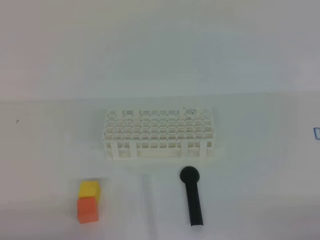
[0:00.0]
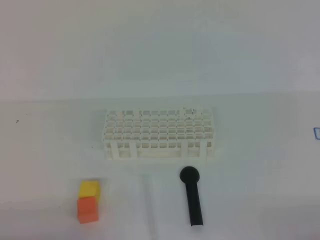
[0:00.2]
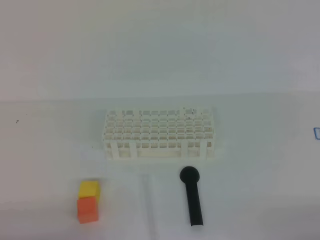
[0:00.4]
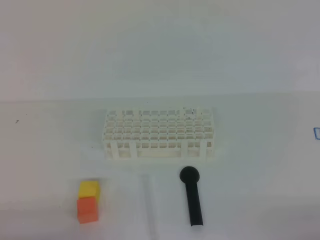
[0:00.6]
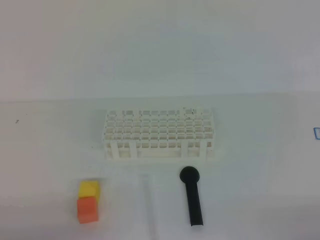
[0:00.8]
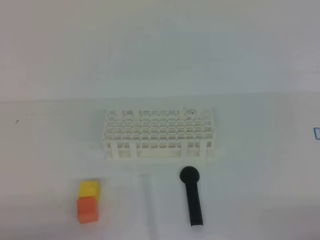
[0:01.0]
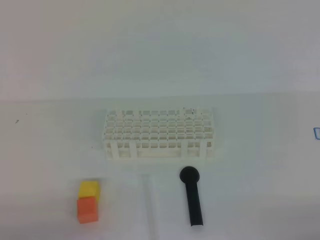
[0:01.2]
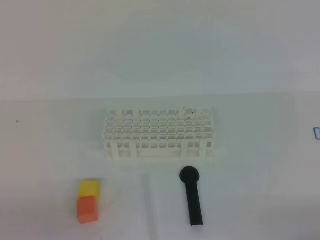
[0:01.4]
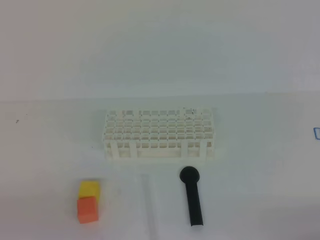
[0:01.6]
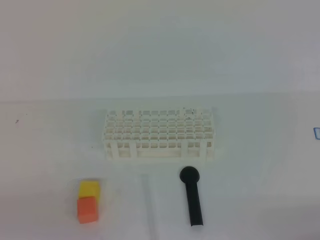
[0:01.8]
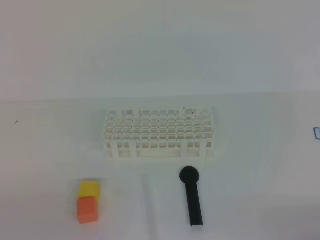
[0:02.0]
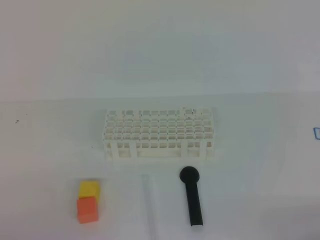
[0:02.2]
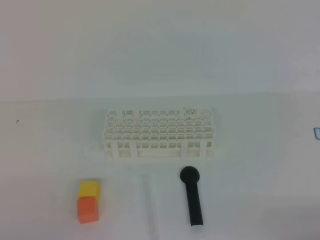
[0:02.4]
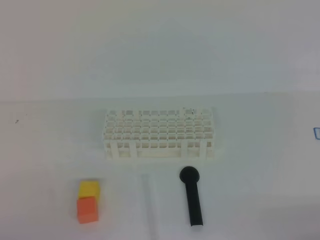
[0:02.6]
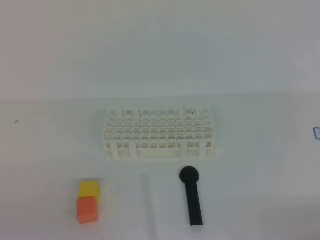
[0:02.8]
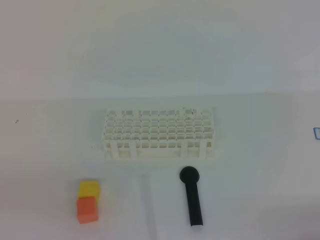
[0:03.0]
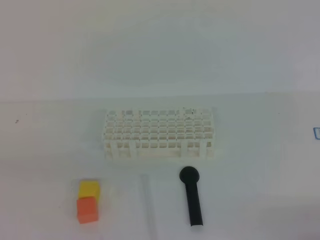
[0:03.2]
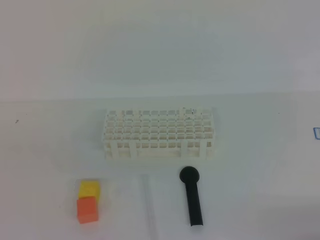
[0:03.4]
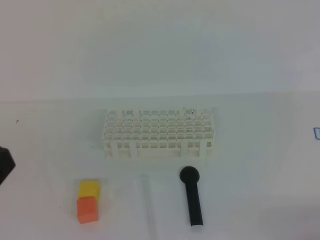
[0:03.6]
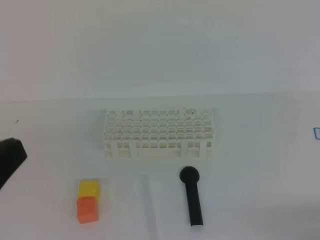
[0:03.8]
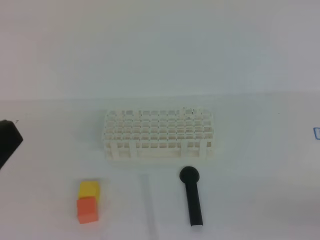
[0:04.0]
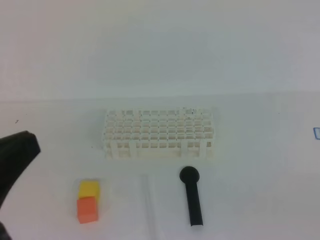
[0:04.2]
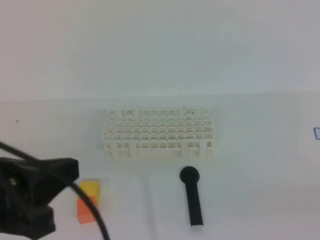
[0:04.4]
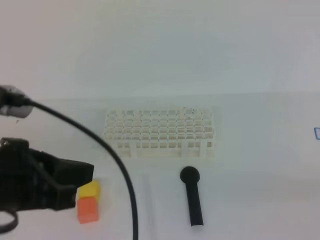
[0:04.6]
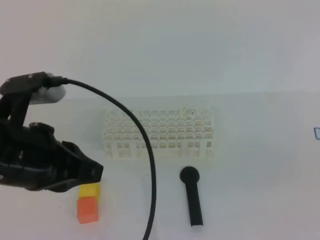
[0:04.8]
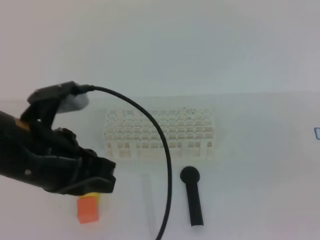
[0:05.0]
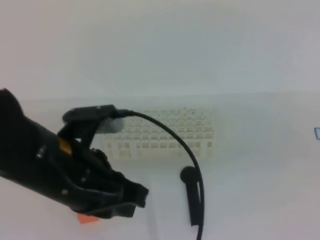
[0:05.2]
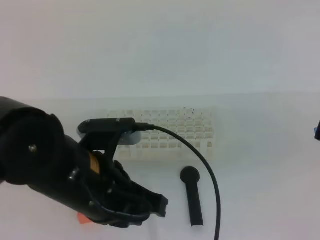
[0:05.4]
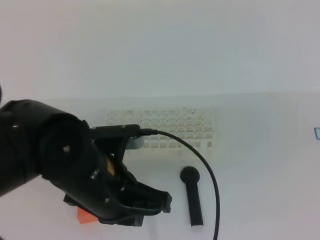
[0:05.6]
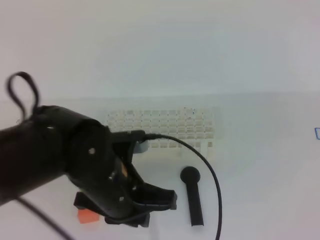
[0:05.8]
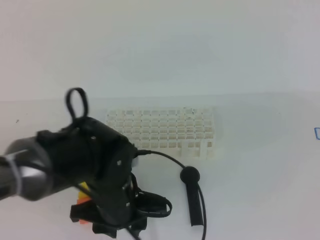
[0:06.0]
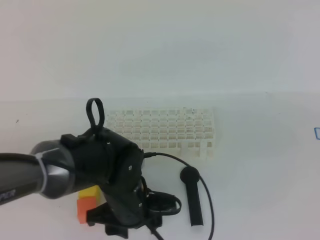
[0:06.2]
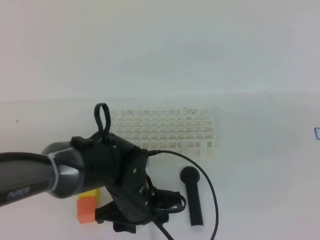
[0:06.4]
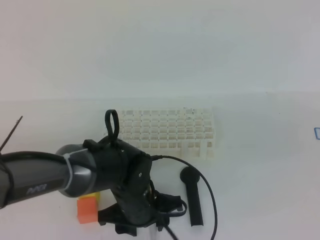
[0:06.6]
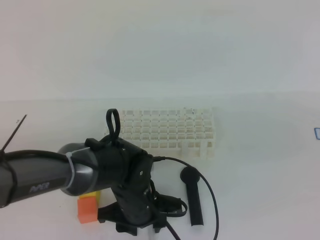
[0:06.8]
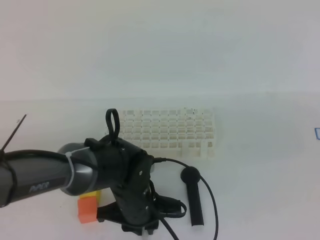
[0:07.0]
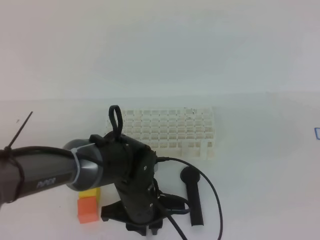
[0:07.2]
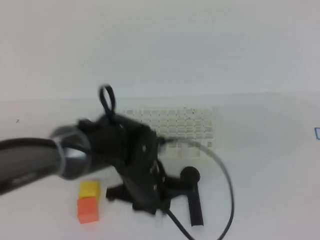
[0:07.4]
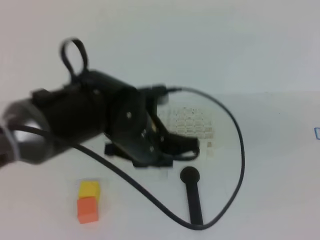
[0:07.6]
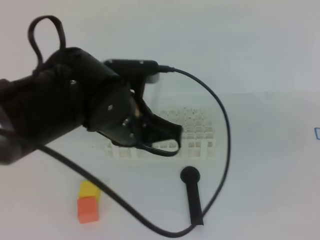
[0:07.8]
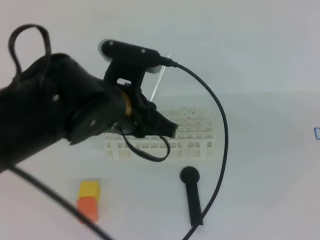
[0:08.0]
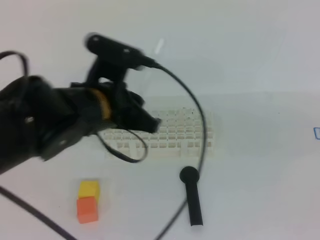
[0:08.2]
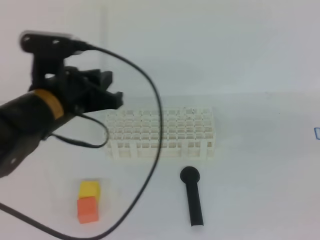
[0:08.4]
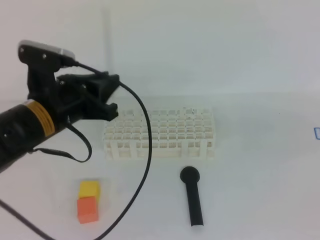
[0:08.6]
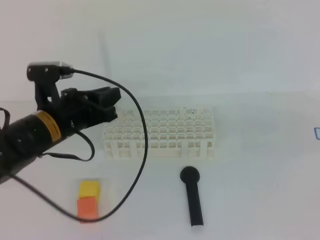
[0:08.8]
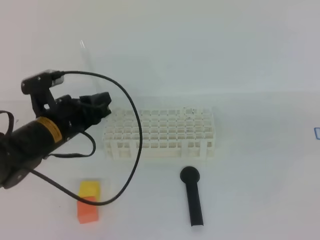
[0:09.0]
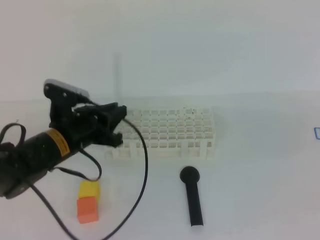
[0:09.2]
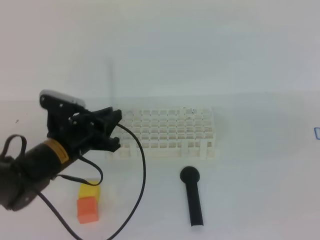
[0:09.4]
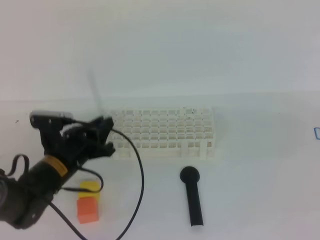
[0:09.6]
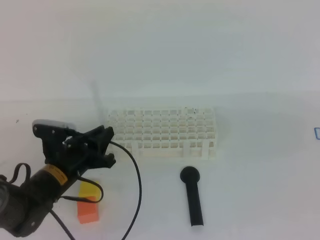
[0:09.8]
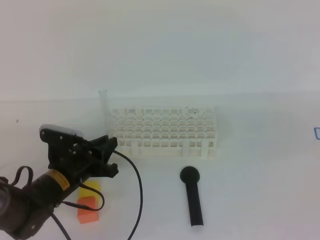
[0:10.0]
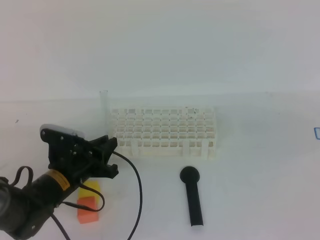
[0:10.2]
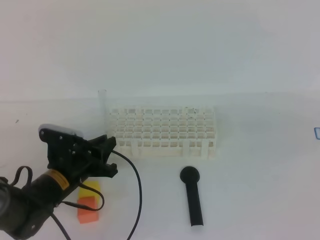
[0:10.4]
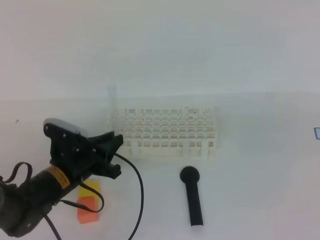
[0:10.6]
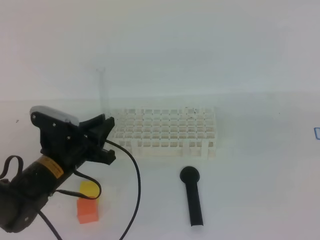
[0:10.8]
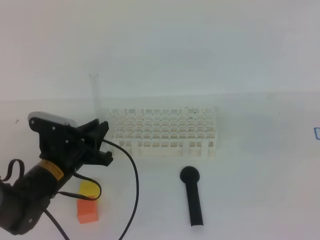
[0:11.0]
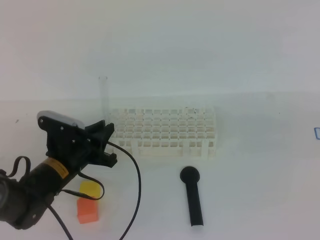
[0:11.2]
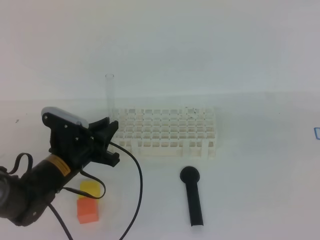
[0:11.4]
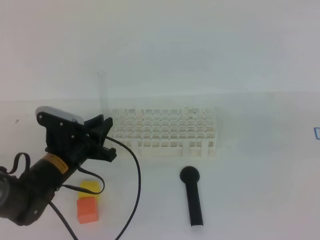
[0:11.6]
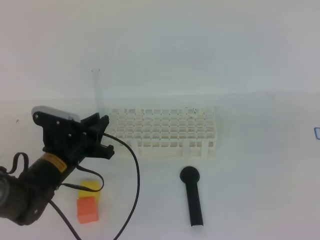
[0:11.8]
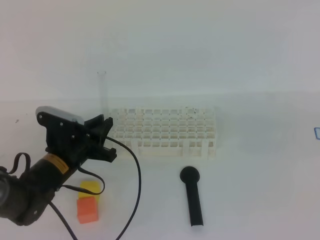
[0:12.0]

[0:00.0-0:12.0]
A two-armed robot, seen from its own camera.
0:03.0 to 0:04.4: The right gripper travels upward by some 5 cm. The left gripper travels upward, to the right and forward by roughly 10 cm.
0:04.4 to 0:06.0: The right gripper heads forward, upward and to the left, covering about 15 cm, while the left gripper shifts some 20 cm downward, to the right and forward, and opens.
0:06.0 to 0:07.6: The left gripper ends up approximately 5 cm from where it was, and closes up.
0:07.6 to 0:09.0: The left gripper heads to the left and forward, covering roughly 15 cm.
0:09.0 to 0:10.4: The left gripper goes some 10 cm downward.
0:10.4 to 0:12.0: There are only small adjustments of the grippers.

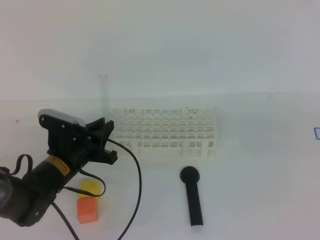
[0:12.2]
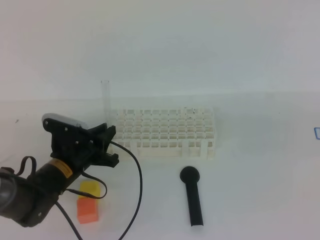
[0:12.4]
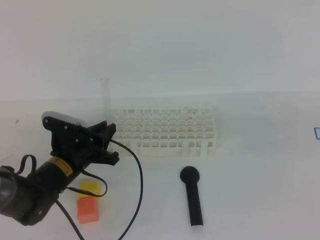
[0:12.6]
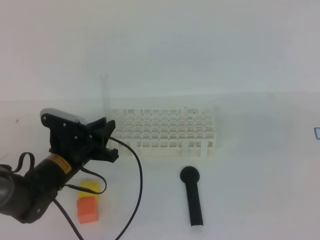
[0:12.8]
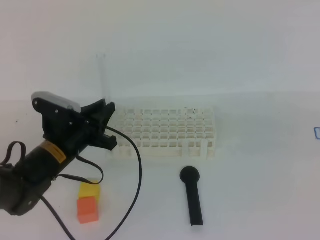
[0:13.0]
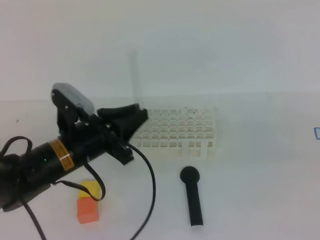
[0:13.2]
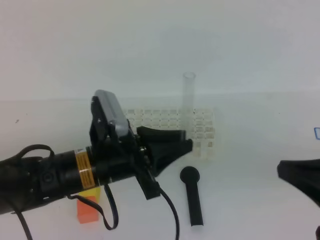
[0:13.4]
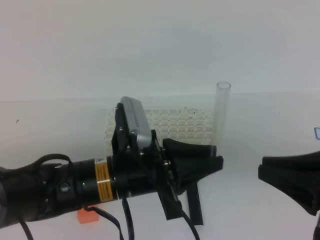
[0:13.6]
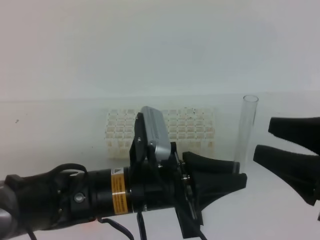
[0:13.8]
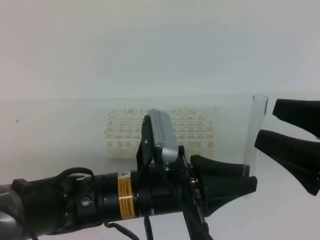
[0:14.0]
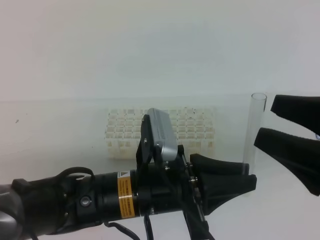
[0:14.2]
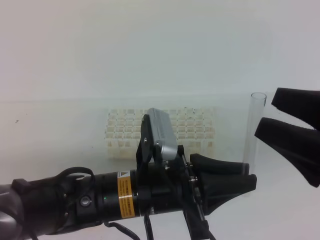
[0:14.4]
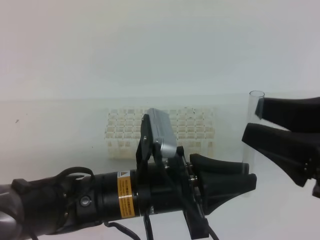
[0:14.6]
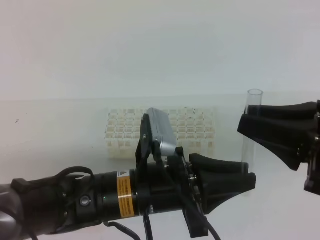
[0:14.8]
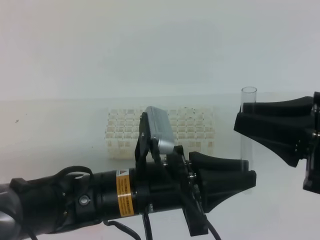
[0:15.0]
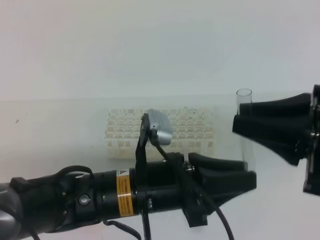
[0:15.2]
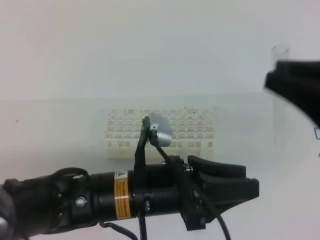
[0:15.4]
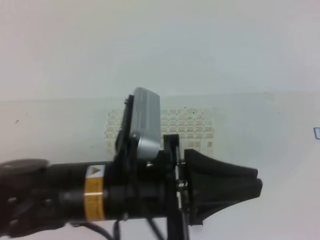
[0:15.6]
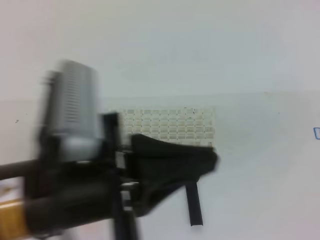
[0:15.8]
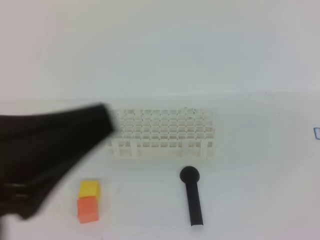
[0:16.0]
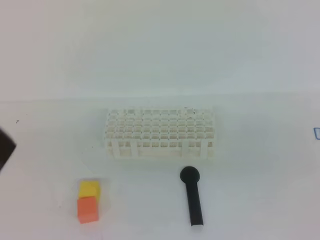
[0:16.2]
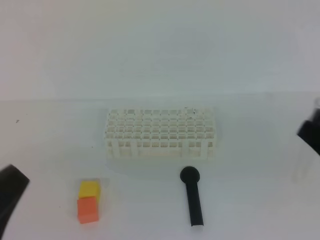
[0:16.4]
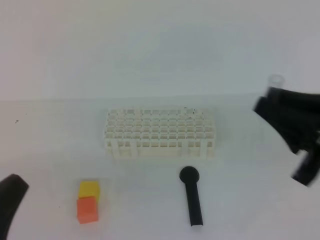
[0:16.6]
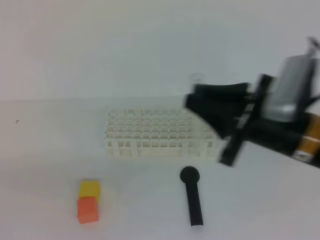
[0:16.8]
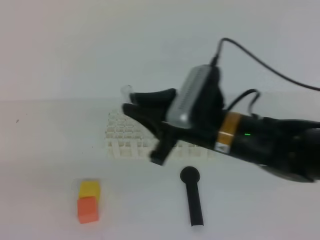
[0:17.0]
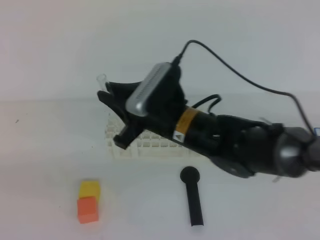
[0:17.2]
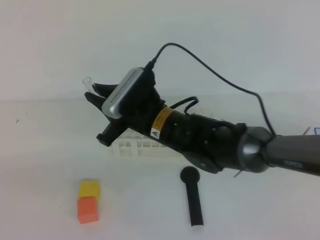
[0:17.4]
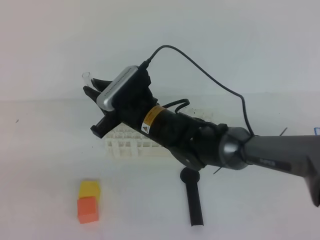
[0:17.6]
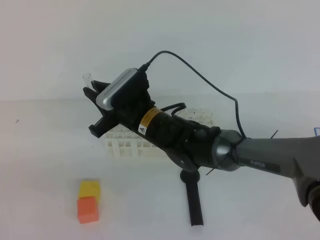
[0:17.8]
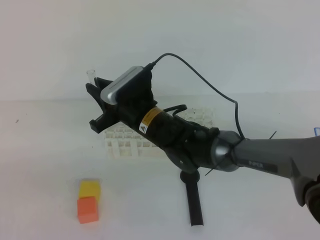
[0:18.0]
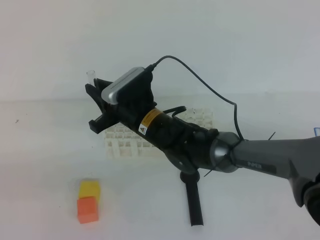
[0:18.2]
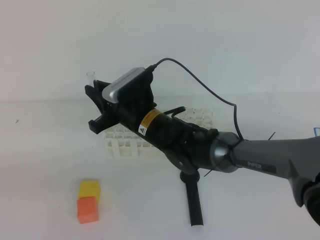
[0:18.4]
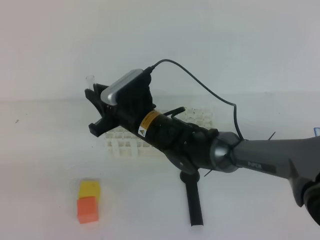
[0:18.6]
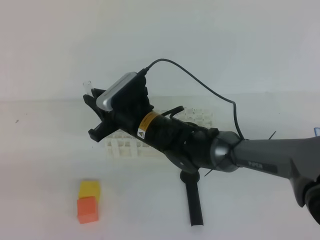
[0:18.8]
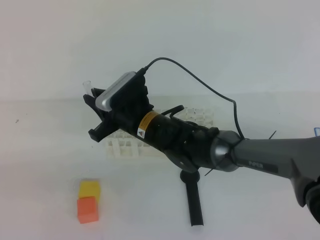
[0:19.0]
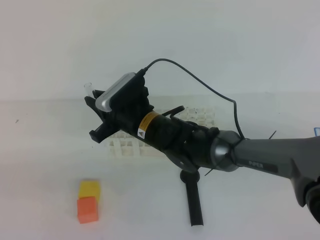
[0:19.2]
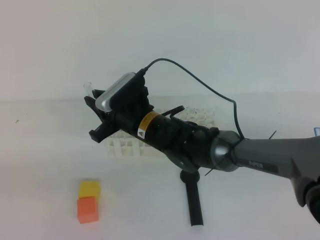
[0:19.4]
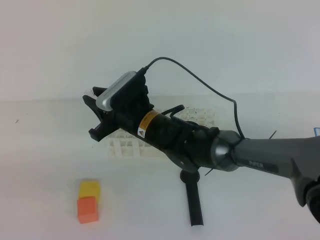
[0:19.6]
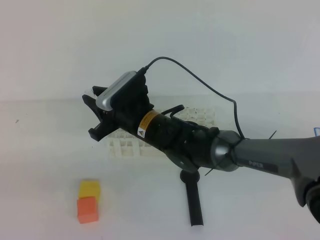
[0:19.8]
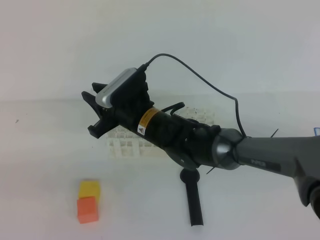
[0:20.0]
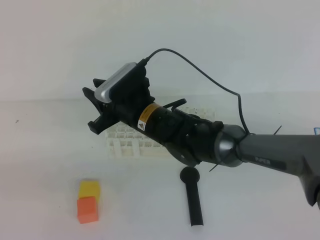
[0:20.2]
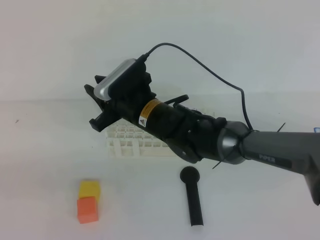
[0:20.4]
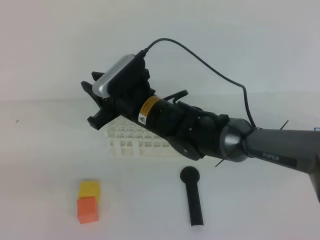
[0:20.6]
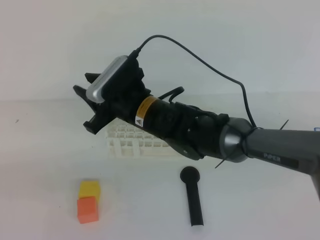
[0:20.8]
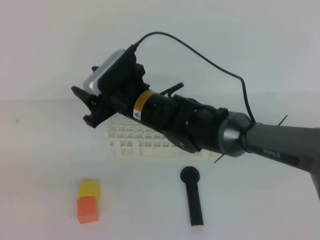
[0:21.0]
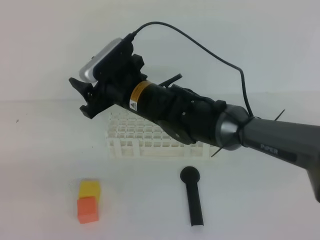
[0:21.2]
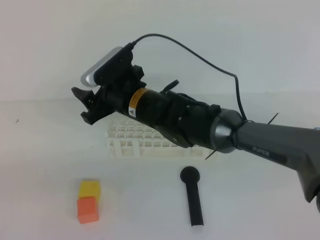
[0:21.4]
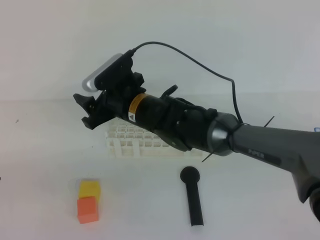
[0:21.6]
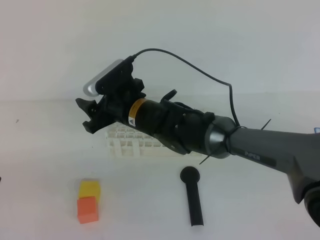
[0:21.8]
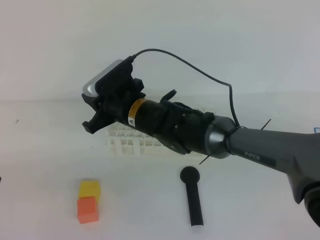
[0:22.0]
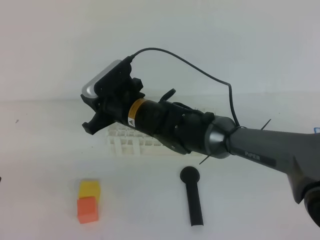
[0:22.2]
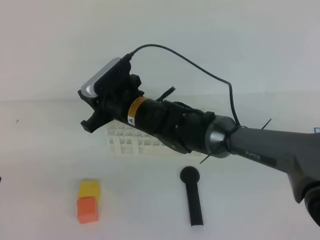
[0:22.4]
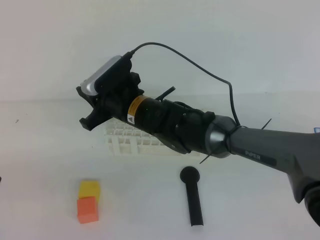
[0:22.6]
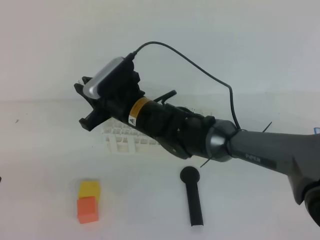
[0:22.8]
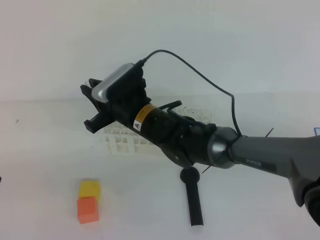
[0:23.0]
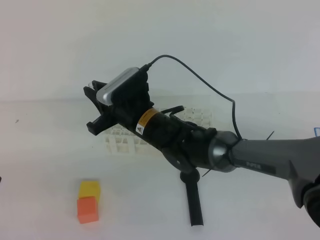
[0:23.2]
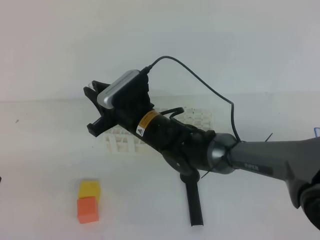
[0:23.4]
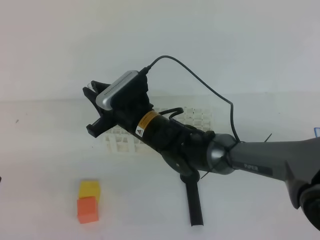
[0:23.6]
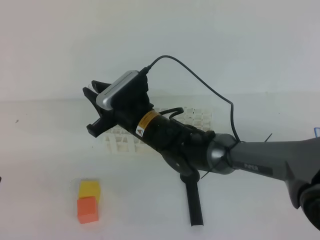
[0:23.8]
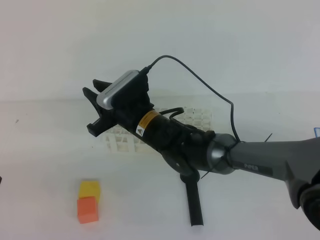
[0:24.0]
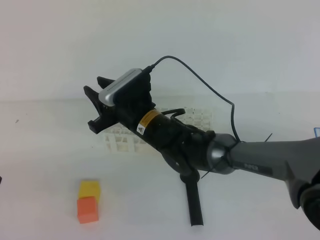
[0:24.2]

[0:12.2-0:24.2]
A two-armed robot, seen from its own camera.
0:12.2 to 0:13.8: The right gripper heads to the left, covering approximately 5 cm, and opens up; the left gripper shifts roughly 20 cm backward, to the right and upward.
0:13.8 to 0:15.2: The right gripper closes. The left gripper opens.
0:15.2 to 0:16.6: The right gripper goes backward and returns, approximately 10 cm each way; the left gripper is displaced to the left and backward by approximately 20 cm, and closes its fingers.
0:16.6 to 0:18.2: The right gripper shifts about 35 cm to the left, forward and downward.
0:18.2 to 0:19.8: The grippers stay close to where they were, moving slightly.
0:19.8 to 0:21.2: The right gripper shifts approximately 5 cm upward, and opens.
0:21.2 to 0:22.6: The right gripper closes its fingers.
0:22.6 to 0:24.2: There are only small adjustments of the grippers.
